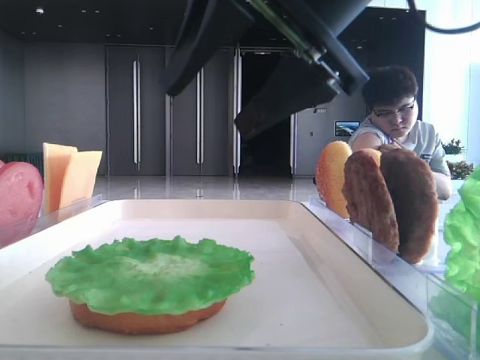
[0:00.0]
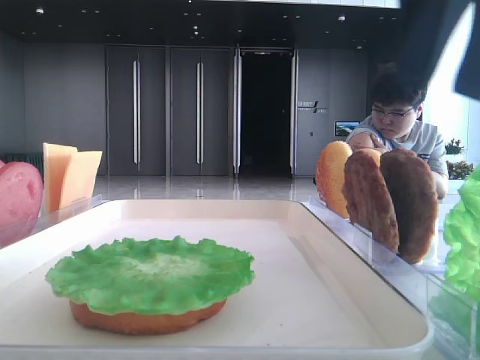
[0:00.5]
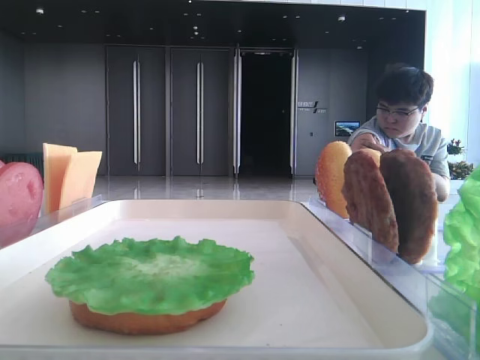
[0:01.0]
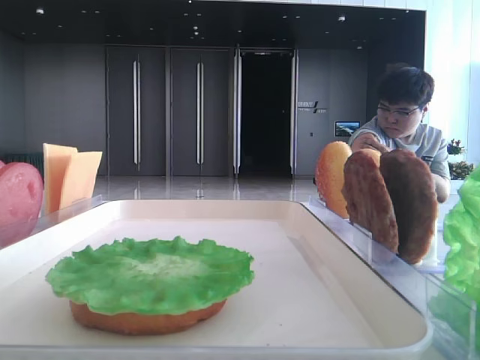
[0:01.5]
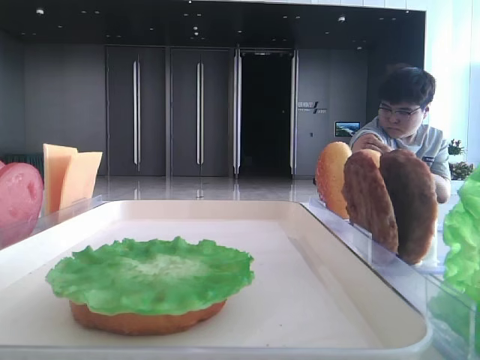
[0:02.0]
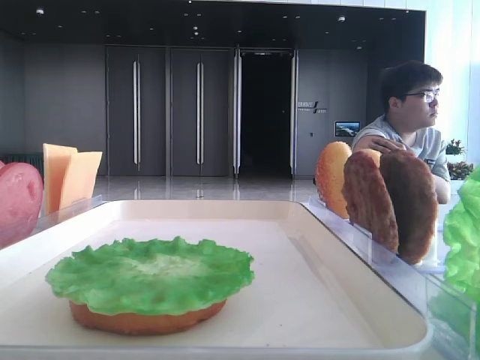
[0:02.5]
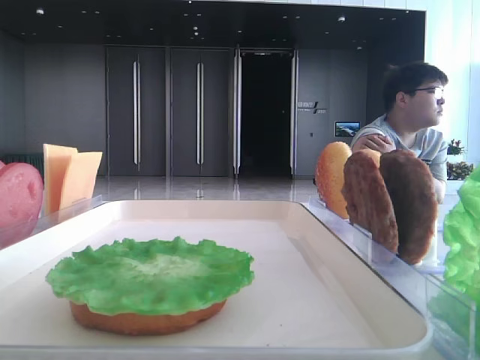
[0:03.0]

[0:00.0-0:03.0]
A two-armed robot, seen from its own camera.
0:00.0 to 0:01.5: The right gripper is displaced to the right, upward and backward by some 30 cm.
0:01.5 to 0:03.0: The right gripper heads backward and downward, covering roughly 15 cm.

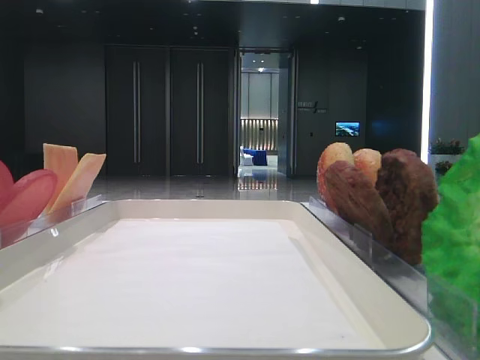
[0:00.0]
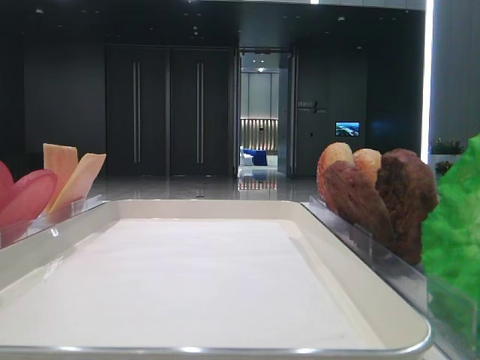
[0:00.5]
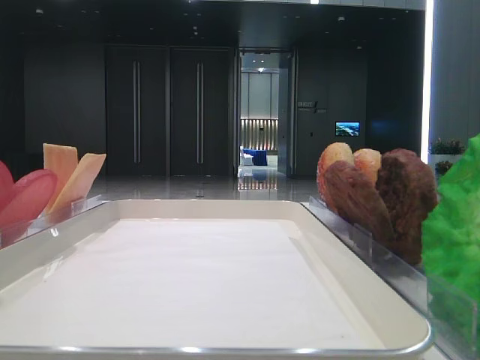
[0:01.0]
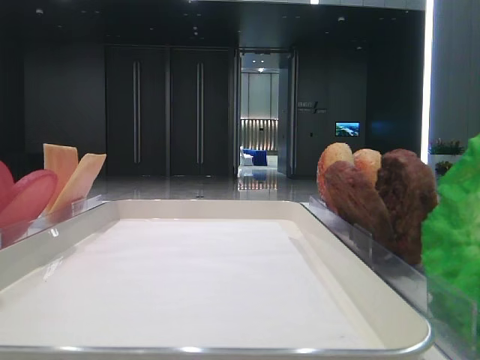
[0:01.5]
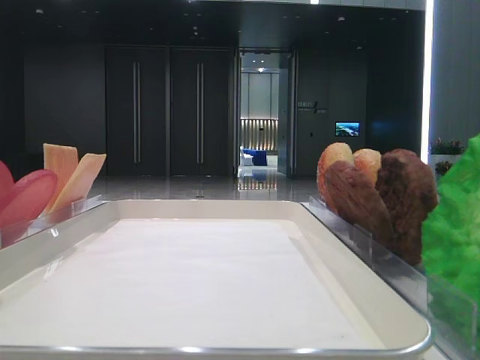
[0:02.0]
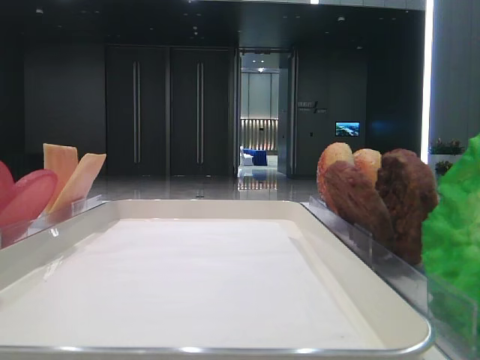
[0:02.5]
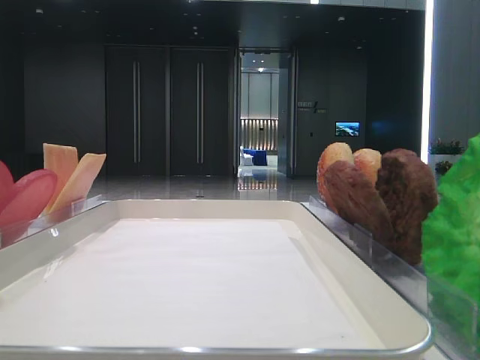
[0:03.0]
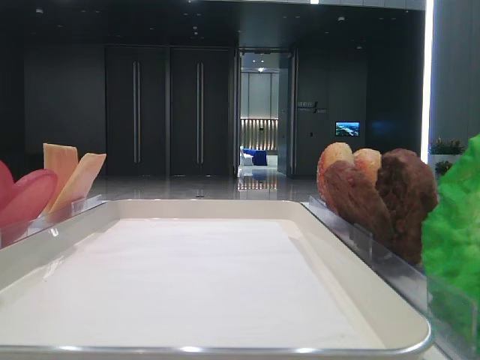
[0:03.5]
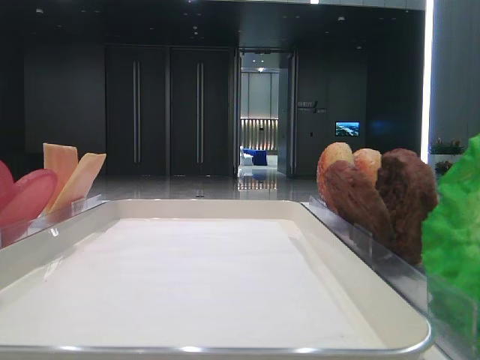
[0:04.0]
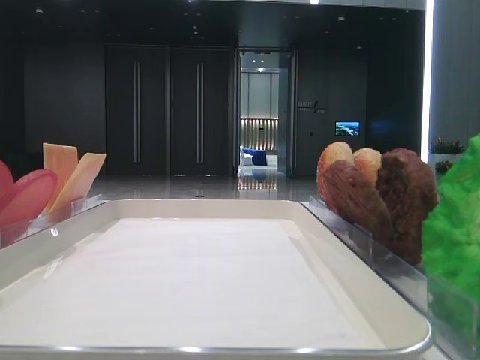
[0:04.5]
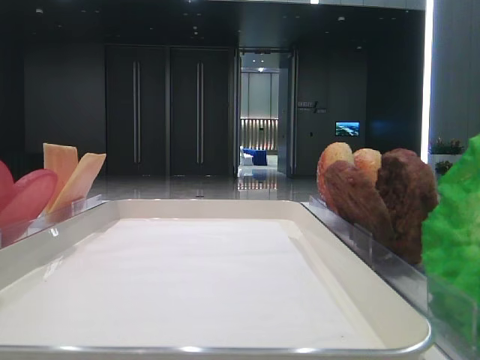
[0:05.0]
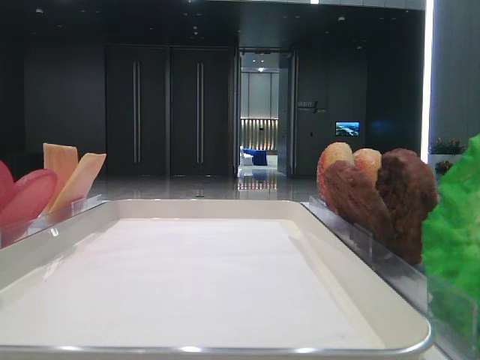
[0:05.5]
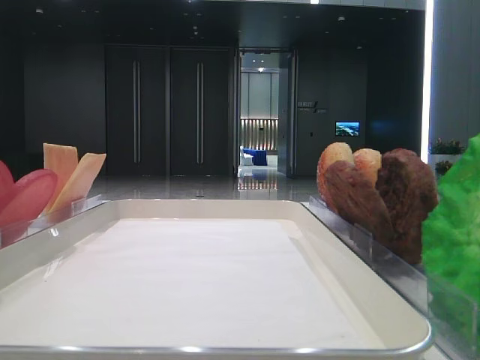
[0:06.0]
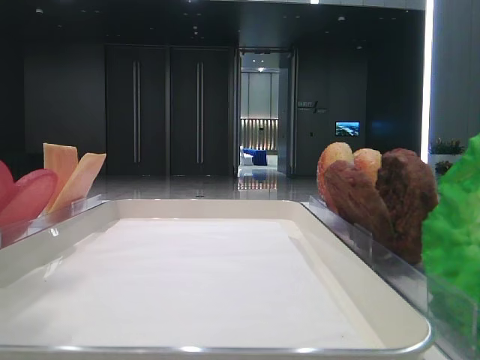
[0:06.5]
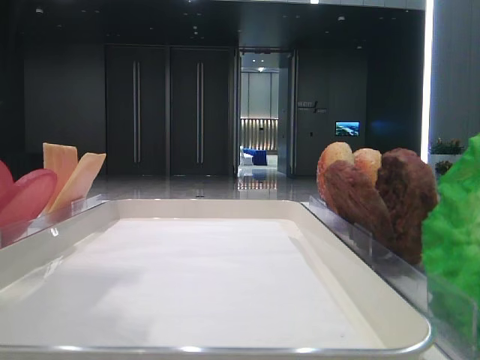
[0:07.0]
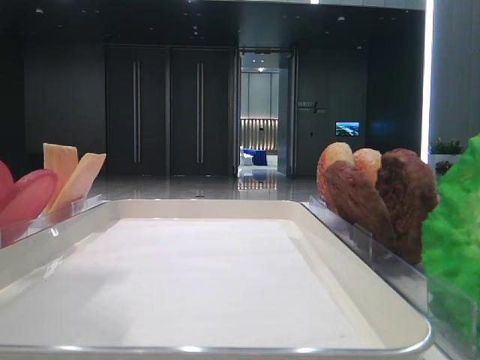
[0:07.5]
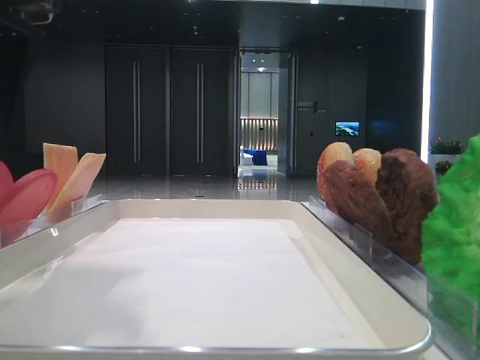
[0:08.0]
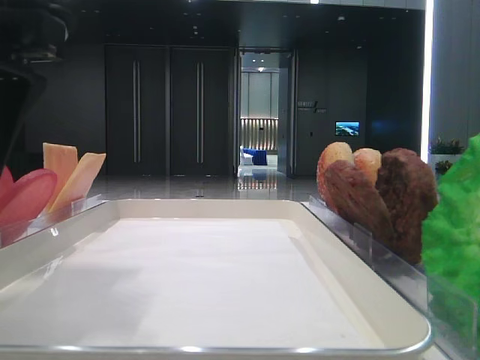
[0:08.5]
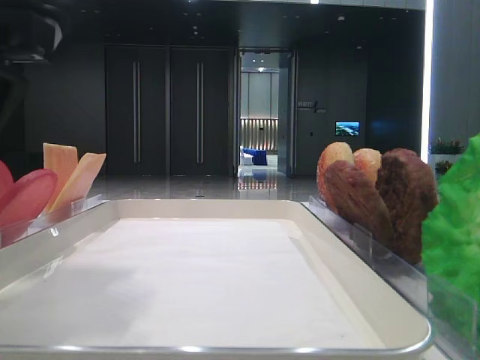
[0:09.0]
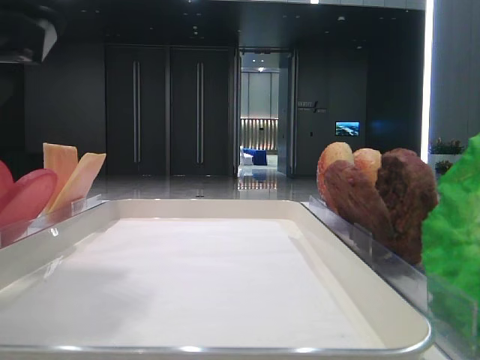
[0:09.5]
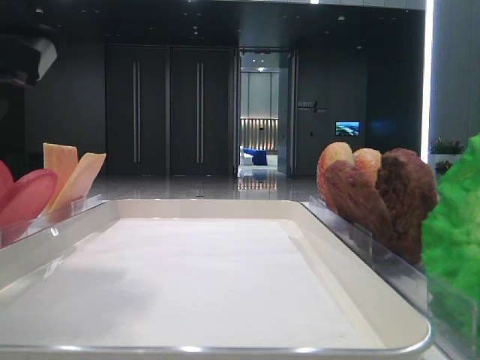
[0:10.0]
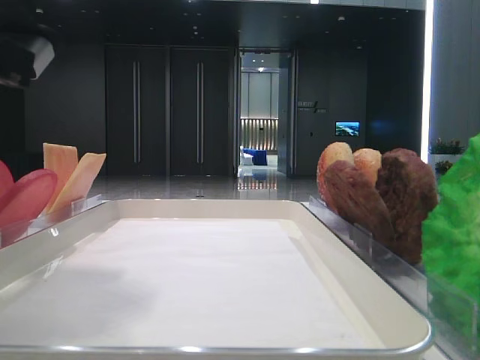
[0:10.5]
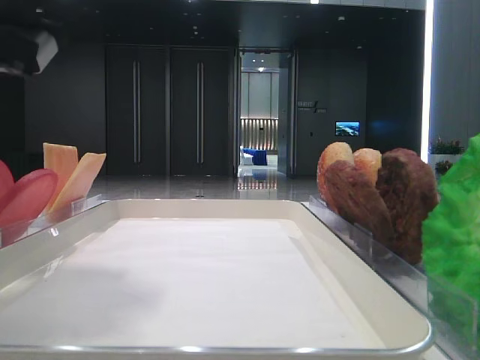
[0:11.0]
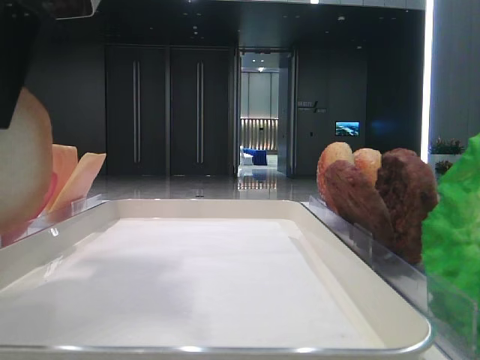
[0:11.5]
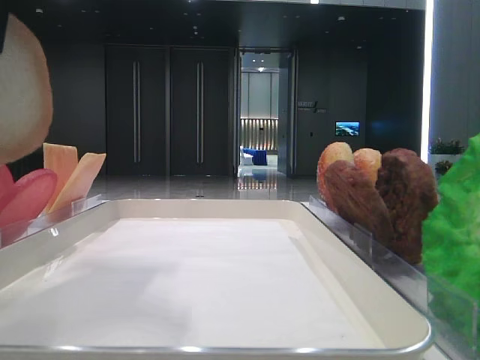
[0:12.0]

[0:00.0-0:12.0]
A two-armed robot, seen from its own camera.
Step, 0:00.0 to 0:10.0: Pick up the bottom bread with the left hand.
0:06.0 to 0:08.0: The left gripper heads to the right and downward, covering roughly 10 cm.
0:10.0 to 0:12.0: The left gripper heads upward, covering about 10 cm, and closes its fingers.

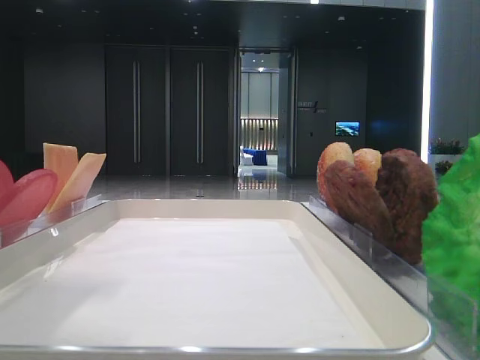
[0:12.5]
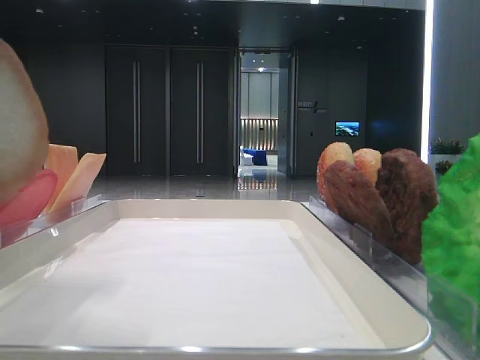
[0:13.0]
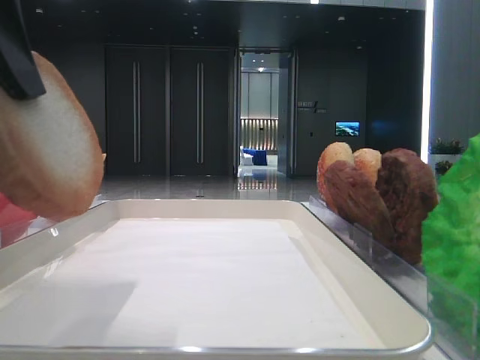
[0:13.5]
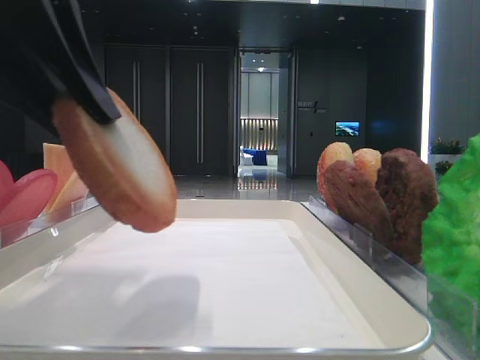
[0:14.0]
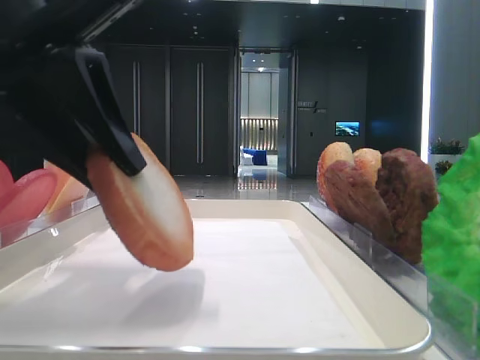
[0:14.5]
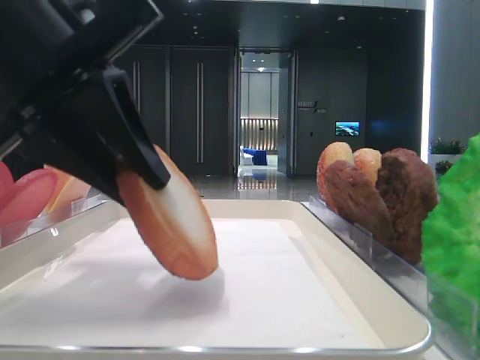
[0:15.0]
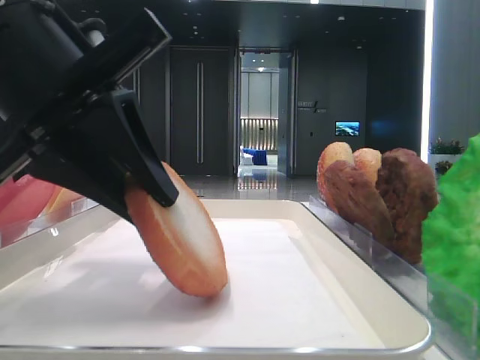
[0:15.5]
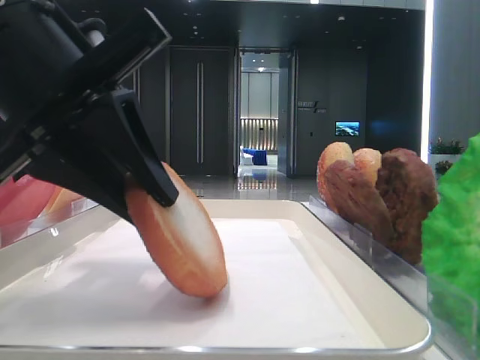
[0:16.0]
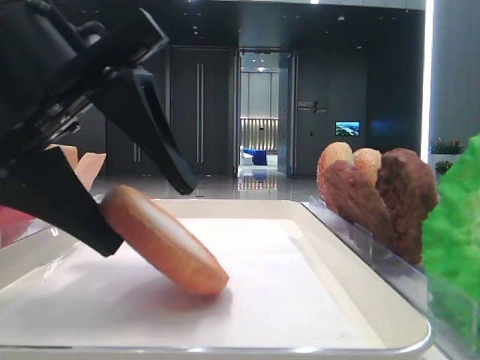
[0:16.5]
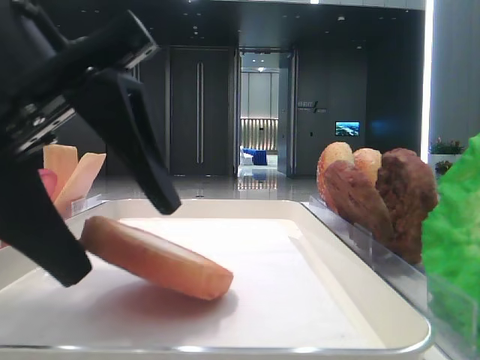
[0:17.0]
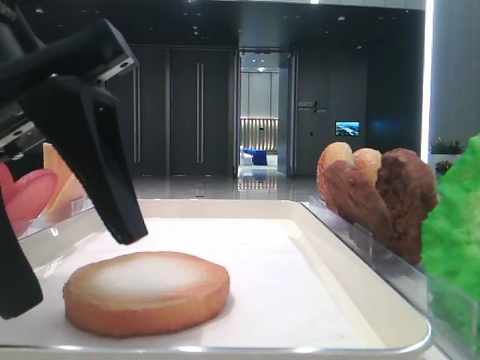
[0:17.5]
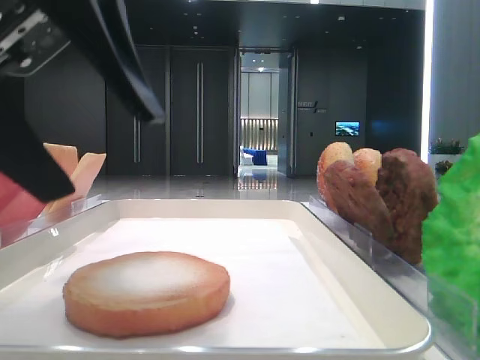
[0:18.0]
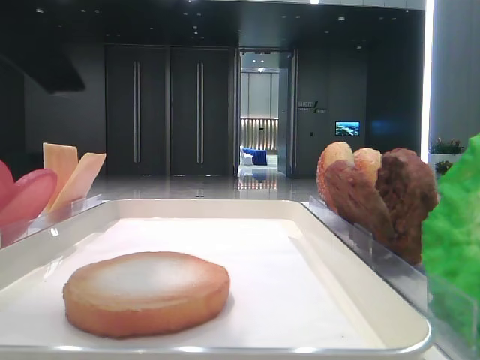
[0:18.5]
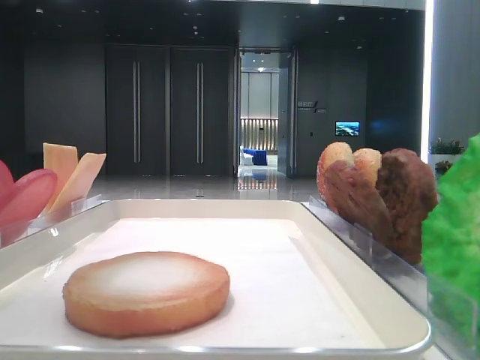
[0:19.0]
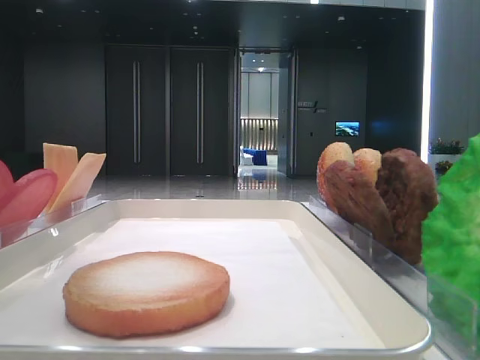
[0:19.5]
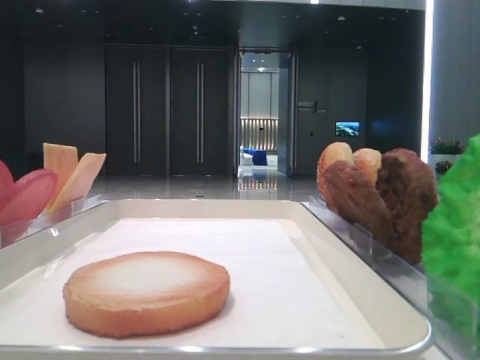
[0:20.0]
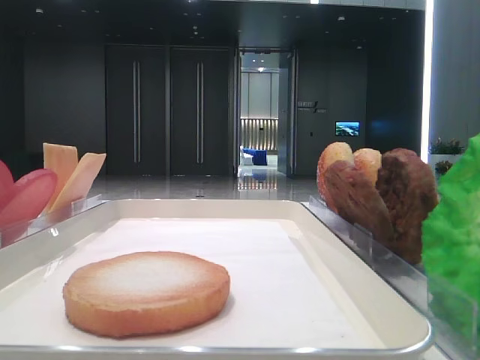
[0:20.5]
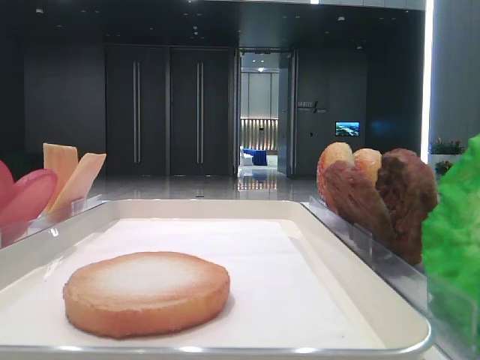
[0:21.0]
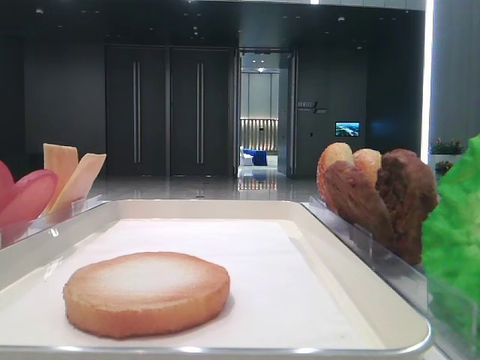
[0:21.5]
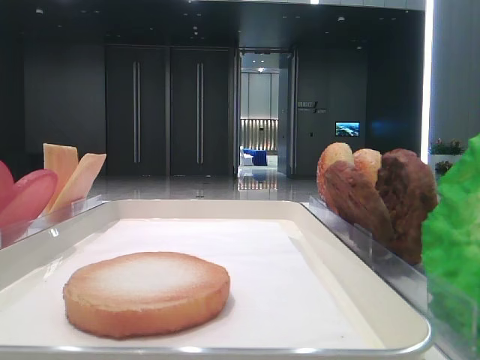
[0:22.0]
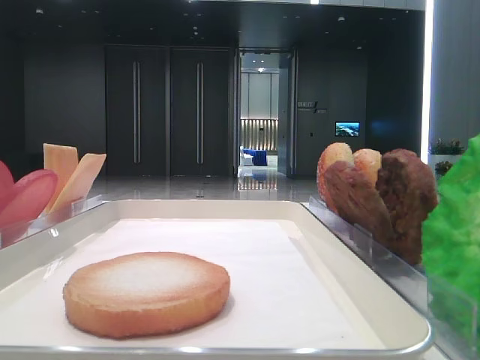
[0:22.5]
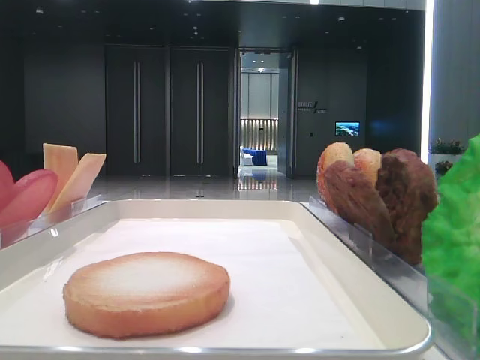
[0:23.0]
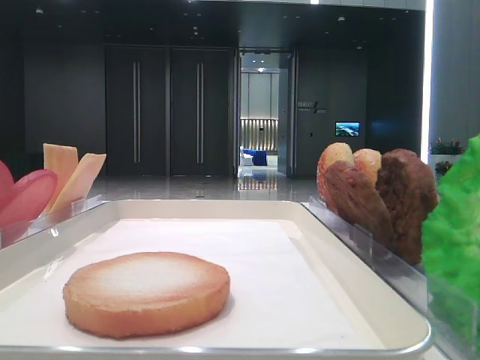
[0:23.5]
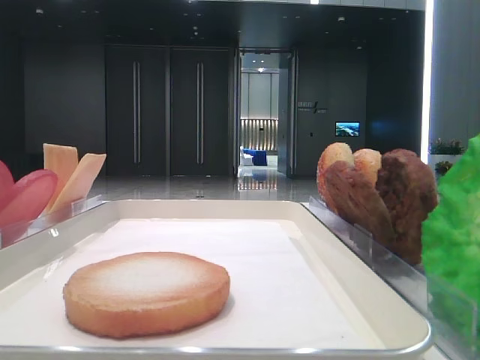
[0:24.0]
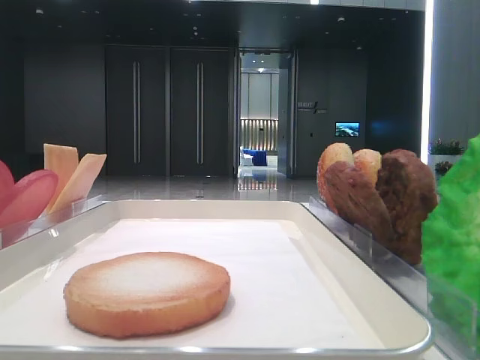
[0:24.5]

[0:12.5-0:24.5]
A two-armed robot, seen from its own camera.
Step, 0:12.5 to 0:17.0: Place the bread on the tray with the left hand.
0:12.5 to 0:14.5: The left gripper heads downward, covering about 10 cm.
0:14.5 to 0:16.5: The left gripper opens up.
0:16.5 to 0:18.5: The left gripper shifts approximately 10 cm upward.
0:18.5 to 0:20.5: The left gripper heads to the left and upward, covering about 15 cm.
